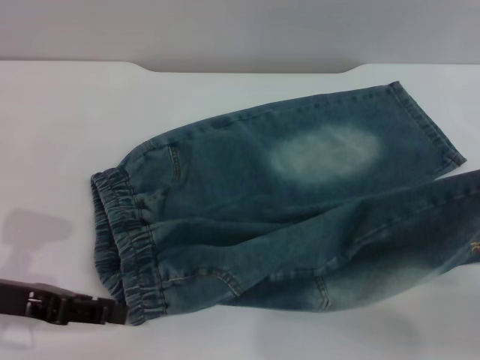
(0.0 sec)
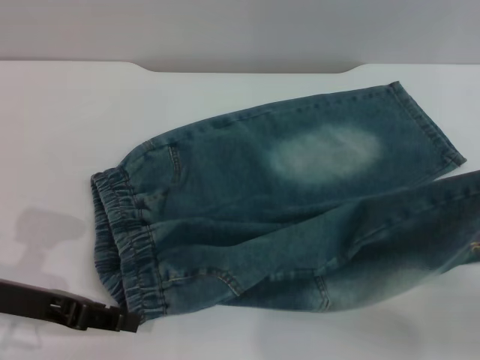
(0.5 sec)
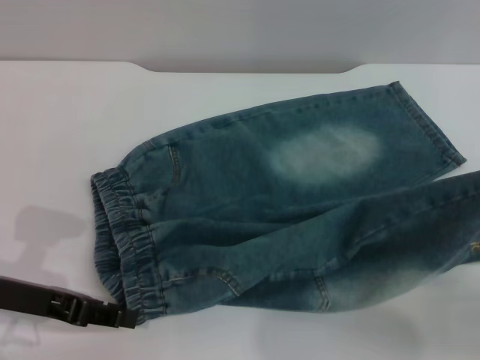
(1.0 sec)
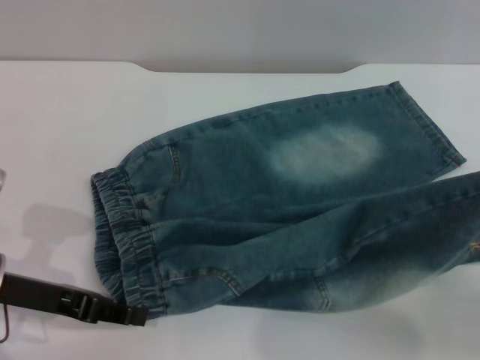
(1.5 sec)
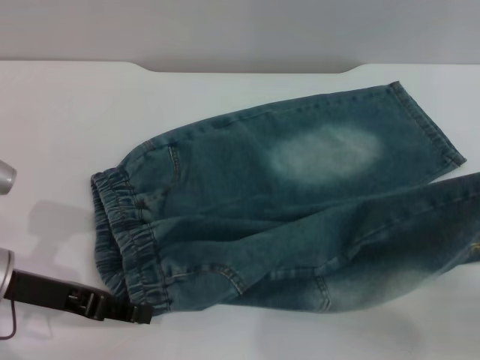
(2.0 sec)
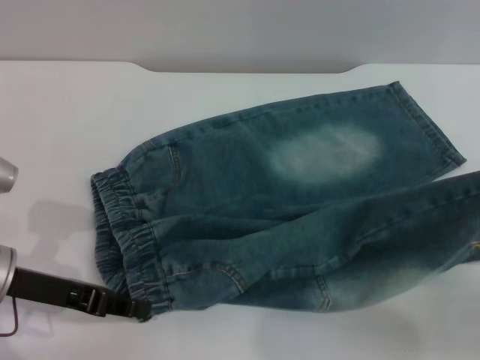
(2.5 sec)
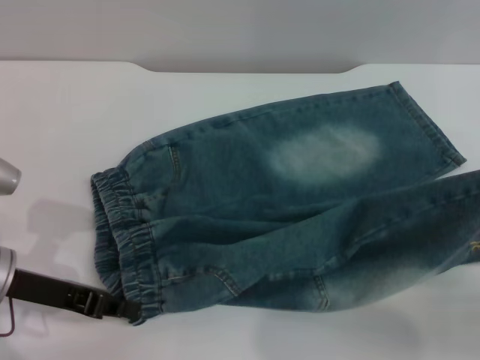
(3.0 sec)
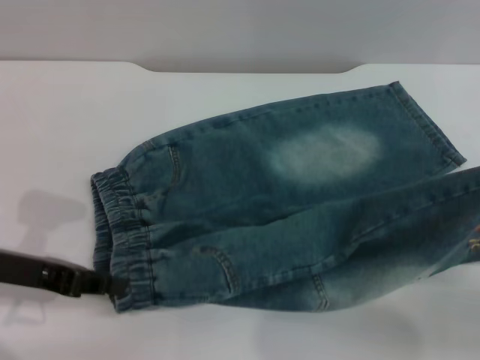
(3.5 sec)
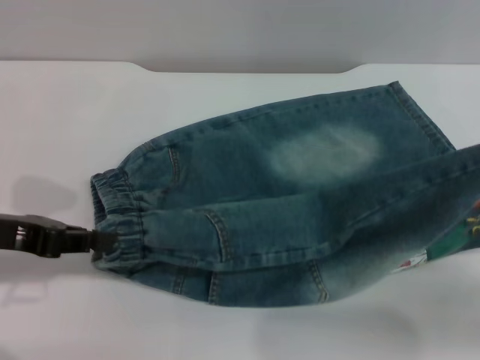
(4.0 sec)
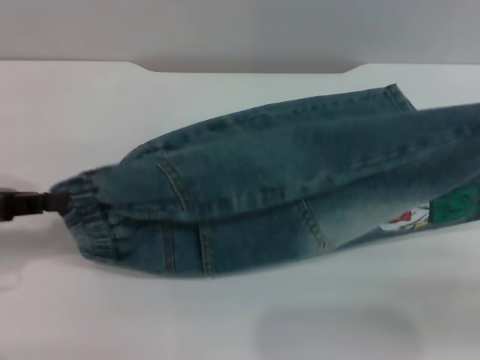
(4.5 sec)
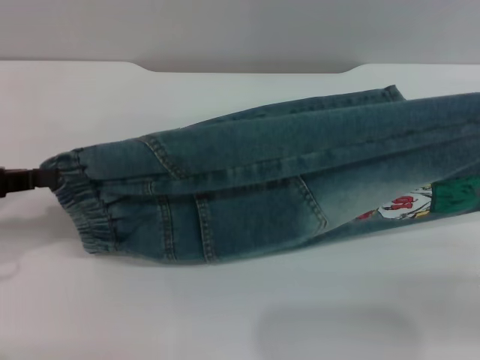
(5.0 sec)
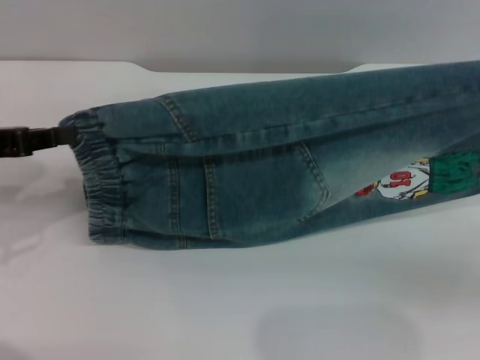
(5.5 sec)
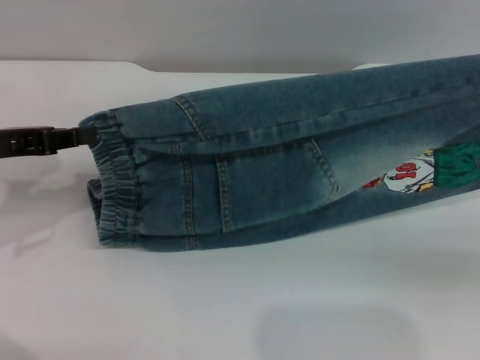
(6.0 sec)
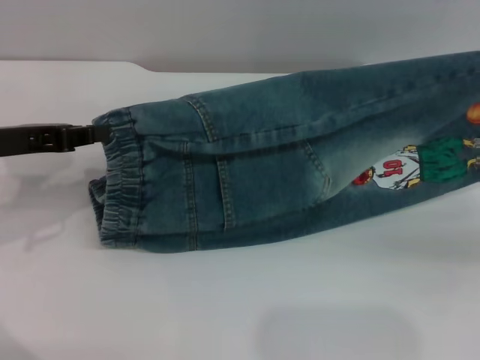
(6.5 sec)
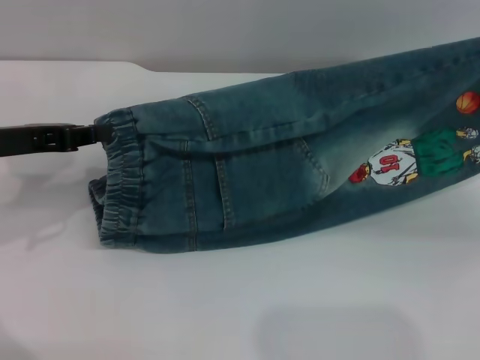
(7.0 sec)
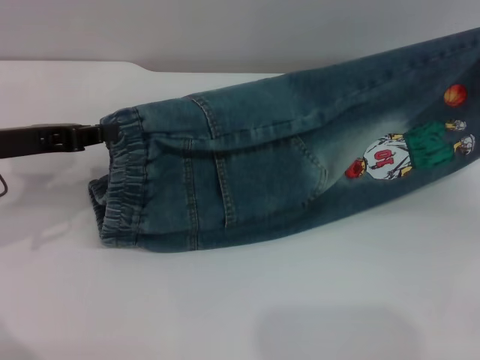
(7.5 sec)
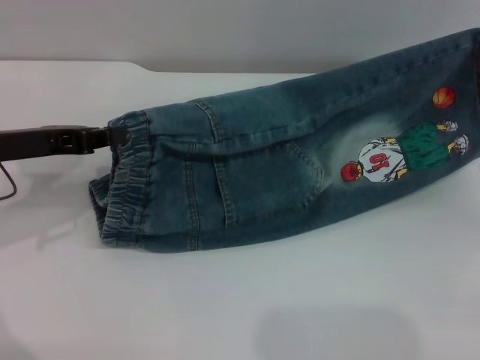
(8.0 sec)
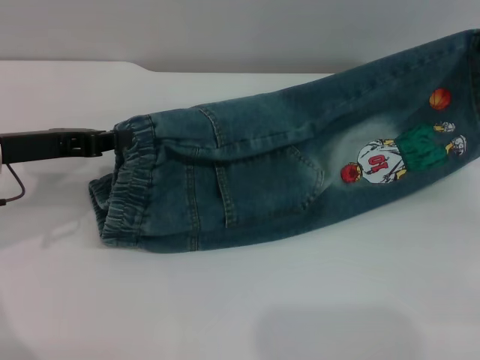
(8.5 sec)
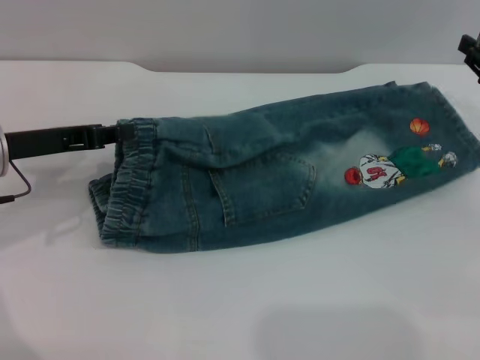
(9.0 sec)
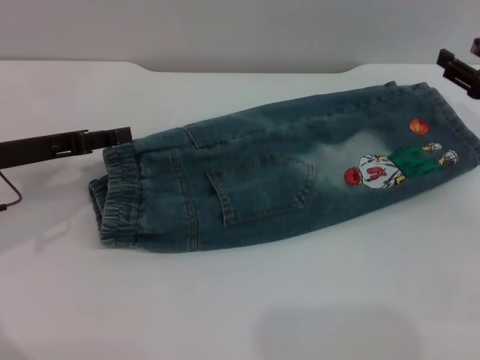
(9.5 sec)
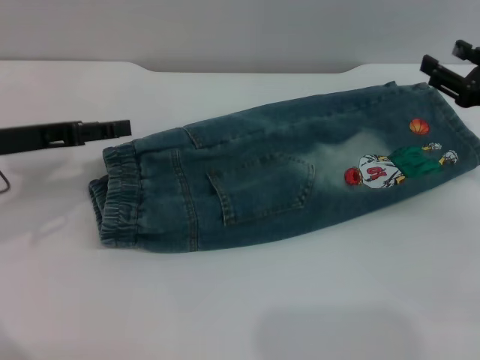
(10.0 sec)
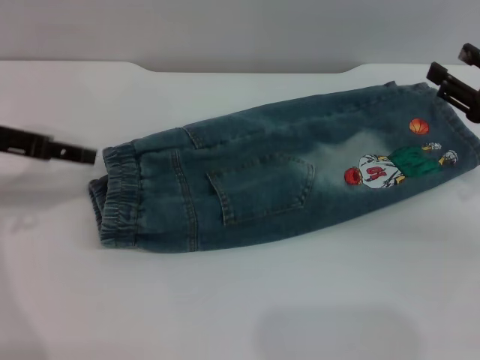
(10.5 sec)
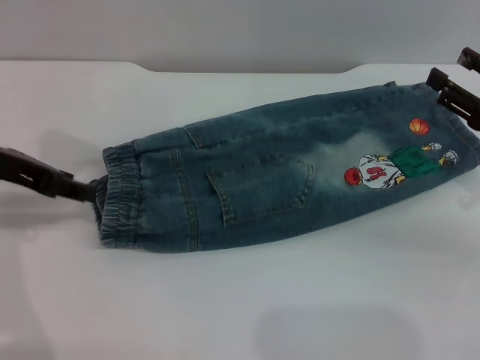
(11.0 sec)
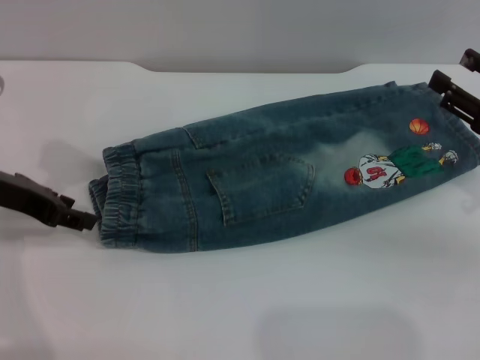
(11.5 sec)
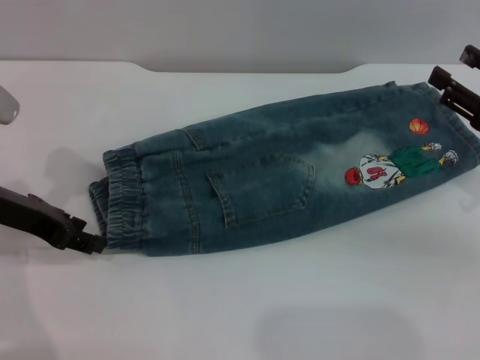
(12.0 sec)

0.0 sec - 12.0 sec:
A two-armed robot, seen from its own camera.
Step, 0.0 sec - 9.5 sec: Fold the bottom of the pants upward with both grippers.
0.0 sec - 2.0 sec: The grippers make only small movements.
2.0 sec - 4.0 sec: The left gripper goes some 5 cm upward, and closes.
4.0 sec - 6.0 sec: The right gripper travels forward by roughly 5 cm.
6.0 sec - 8.0 sec: The right gripper moves forward and to the left, about 10 cm.
8.0 sec - 10.0 sec: The right gripper opens up; the left gripper opens up.

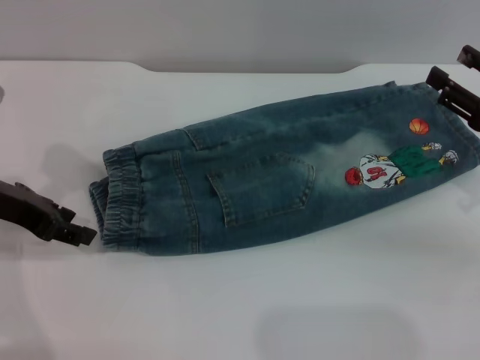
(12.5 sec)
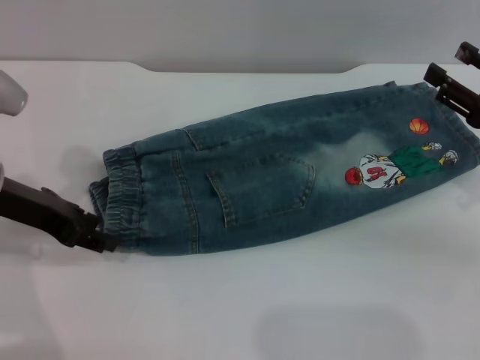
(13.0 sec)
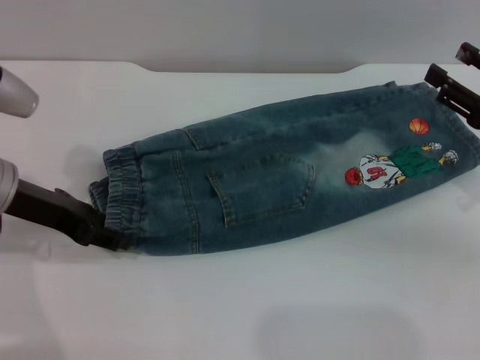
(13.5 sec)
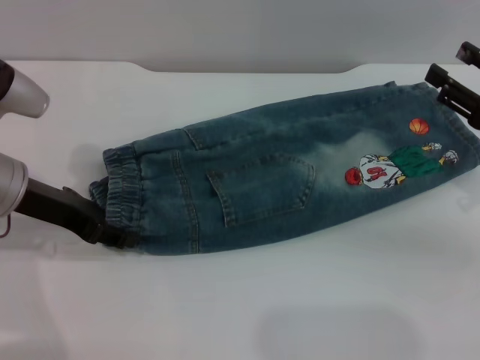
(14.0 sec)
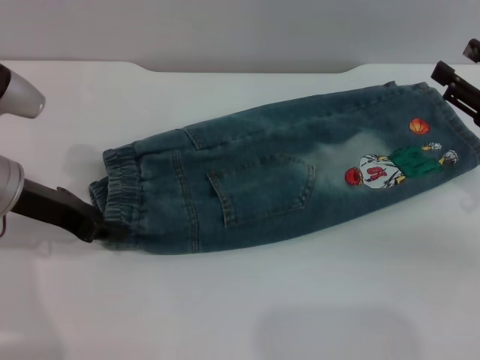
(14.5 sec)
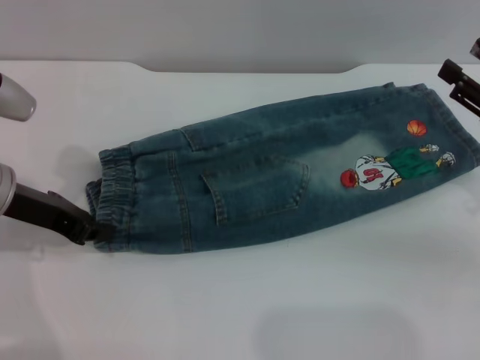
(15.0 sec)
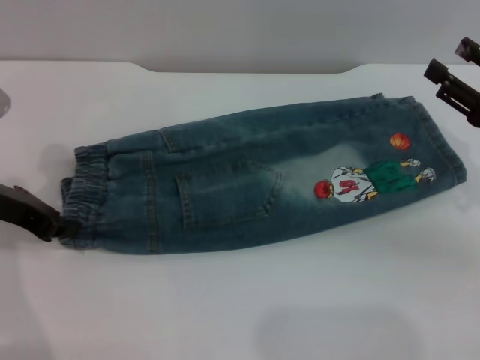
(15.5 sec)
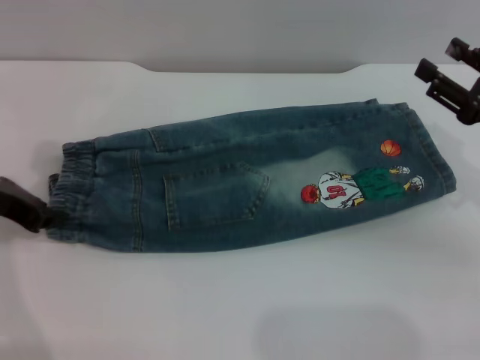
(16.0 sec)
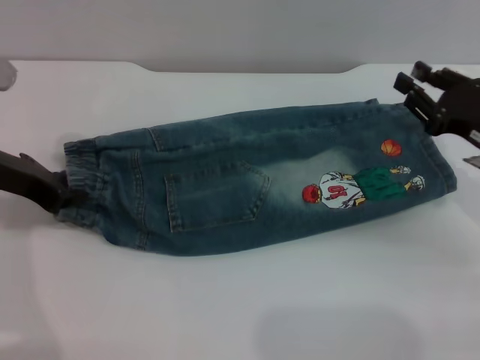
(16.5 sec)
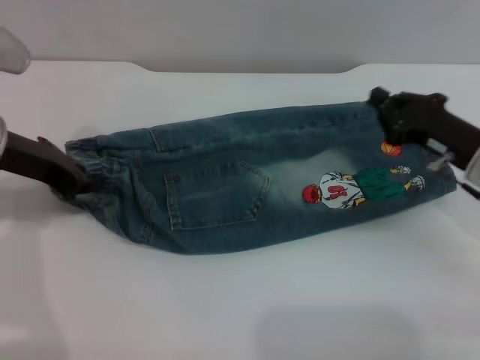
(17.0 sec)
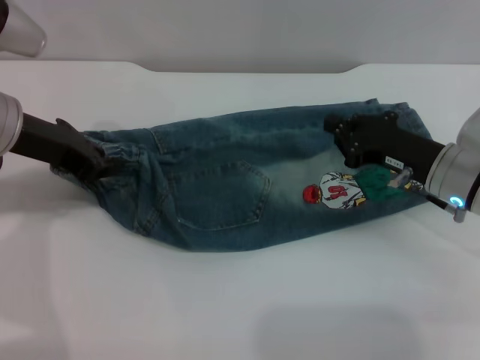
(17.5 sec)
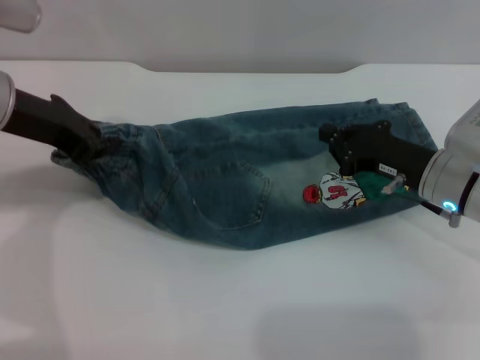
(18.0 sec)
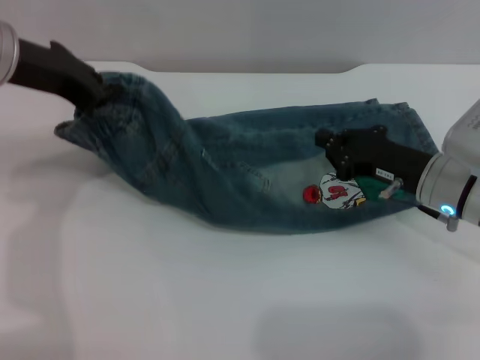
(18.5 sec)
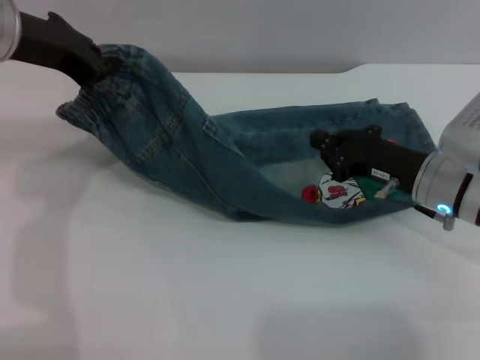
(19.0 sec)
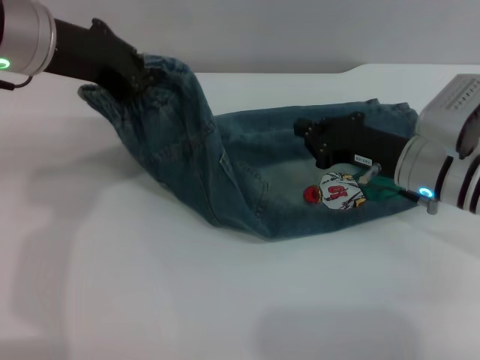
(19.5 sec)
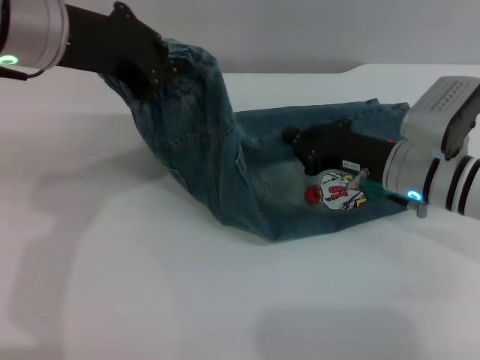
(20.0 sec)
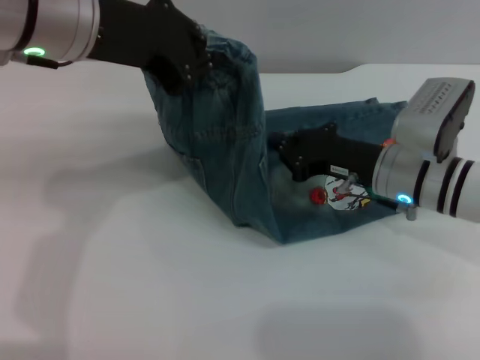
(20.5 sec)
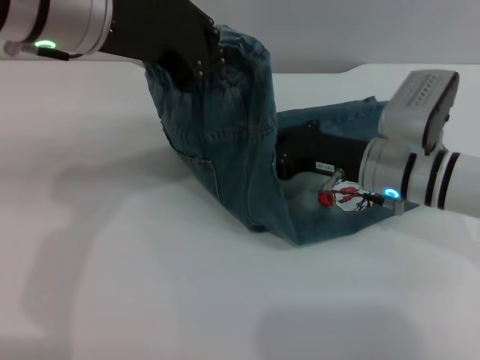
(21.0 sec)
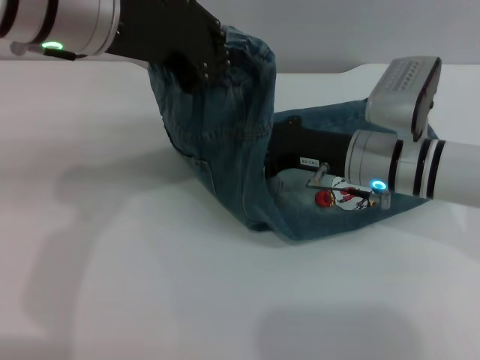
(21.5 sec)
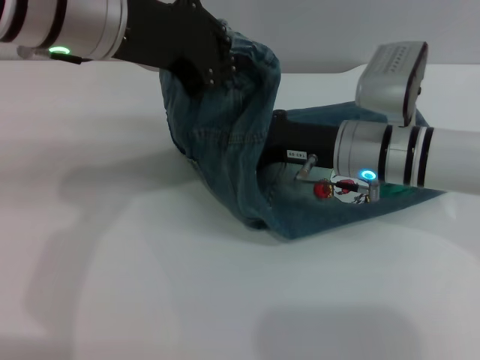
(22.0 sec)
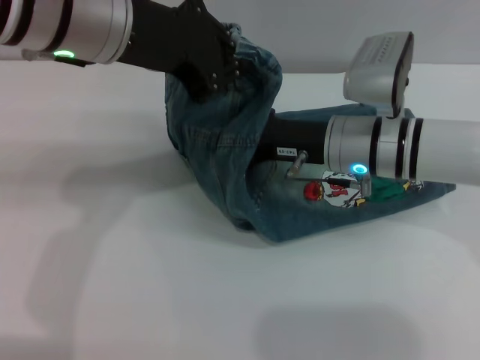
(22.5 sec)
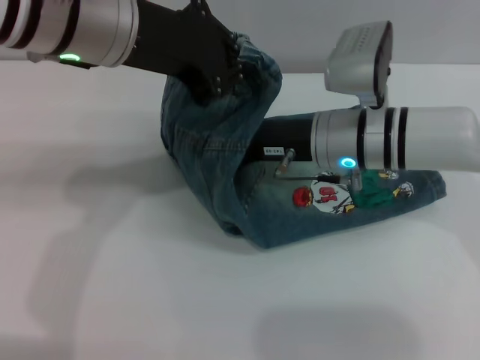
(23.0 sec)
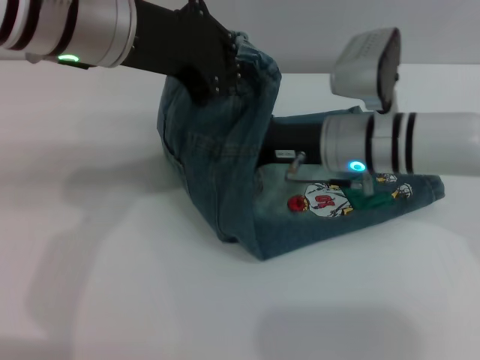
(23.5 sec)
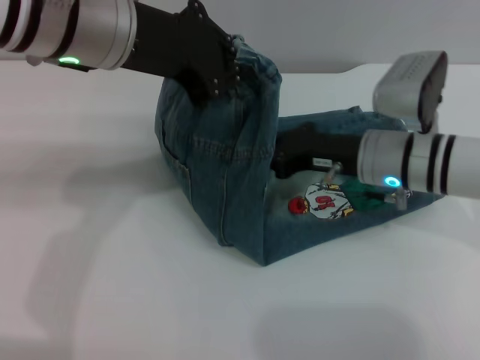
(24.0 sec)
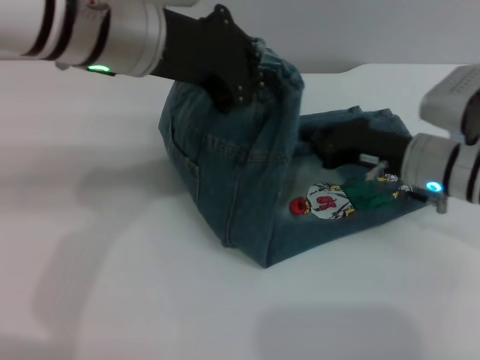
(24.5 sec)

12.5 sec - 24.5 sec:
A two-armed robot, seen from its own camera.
12.5 sec - 14.5 sec: There are only small adjustments of the grippers.
14.5 sec - 16.5 sec: The left gripper closes up.
16.5 sec - 18.5 sec: The left gripper goes some 5 cm upward. Meanwhile the right gripper travels to the left by roughly 5 cm, and closes up.
18.5 sec - 20.5 sec: The left gripper heads to the right, covering about 5 cm.
20.5 sec - 22.5 sec: The right gripper moves to the left, about 5 cm.
22.5 sec - 24.5 sec: The right gripper moves to the right, some 10 cm.

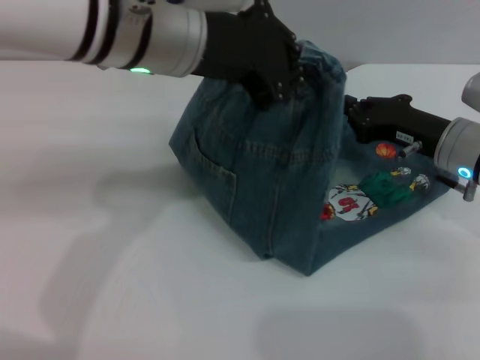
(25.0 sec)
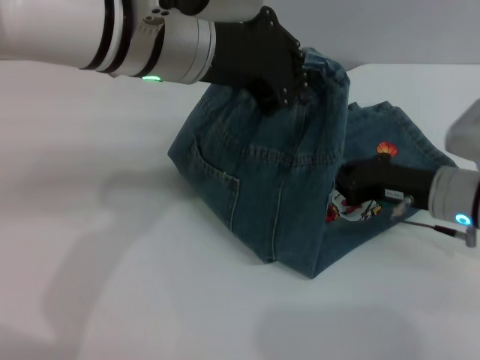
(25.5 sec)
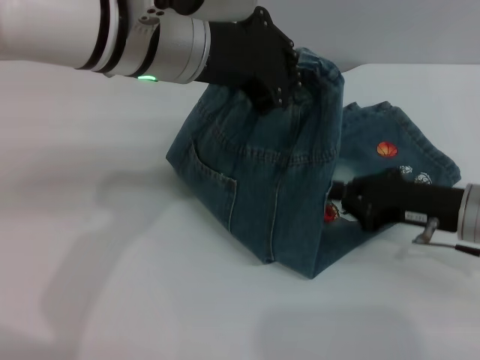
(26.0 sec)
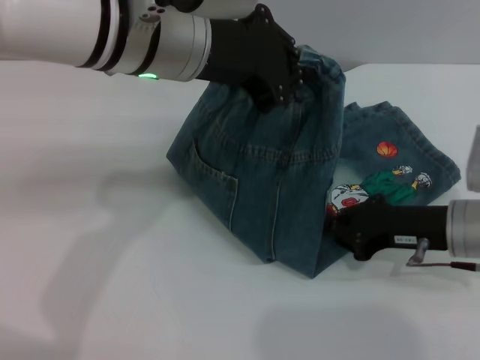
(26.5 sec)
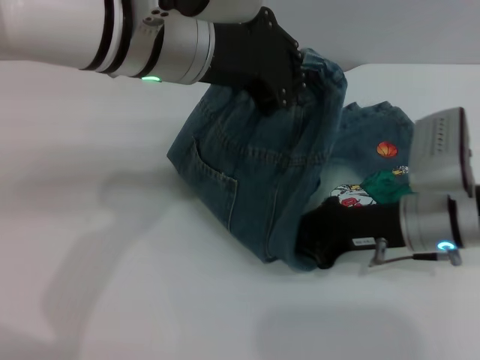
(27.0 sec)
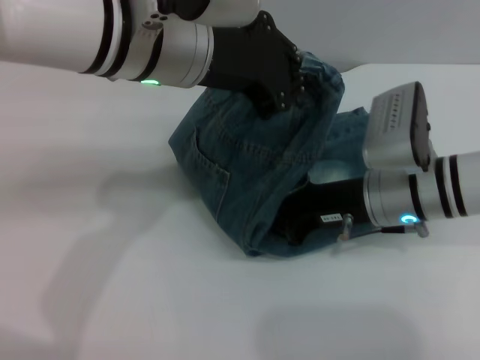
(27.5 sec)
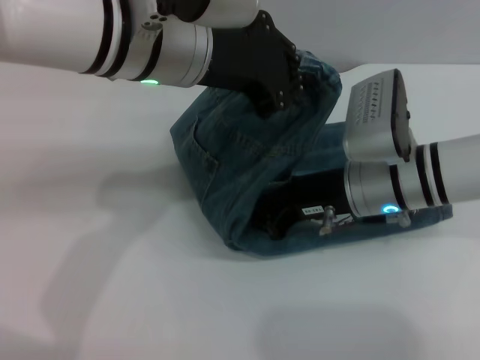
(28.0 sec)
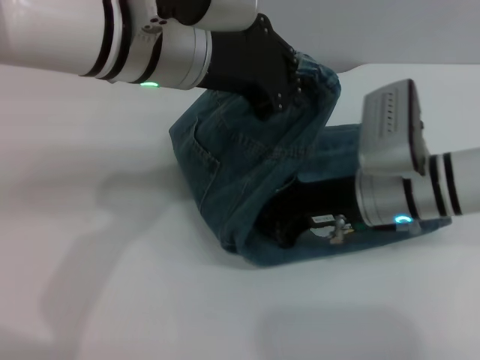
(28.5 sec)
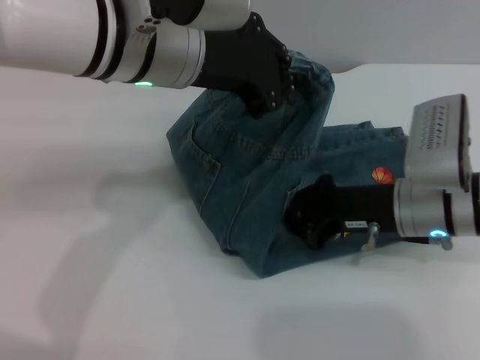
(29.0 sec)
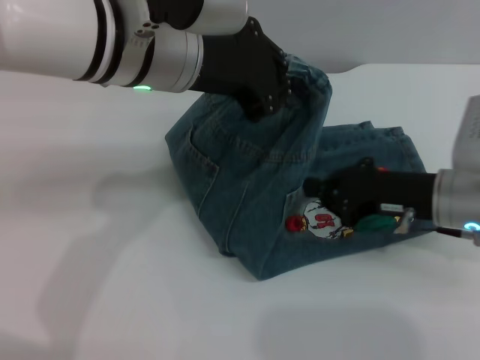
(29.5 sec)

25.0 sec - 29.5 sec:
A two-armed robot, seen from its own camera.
25.0 sec - 27.0 sec: The right gripper is displaced backward by roughly 5 cm.
